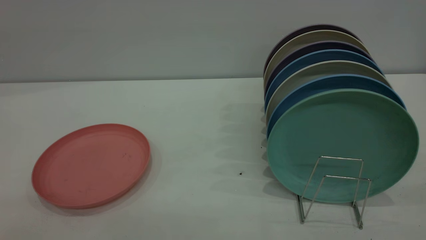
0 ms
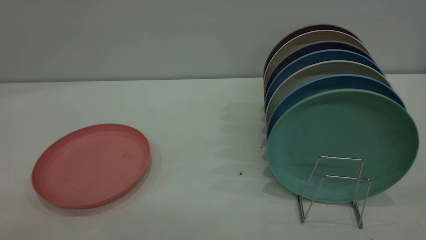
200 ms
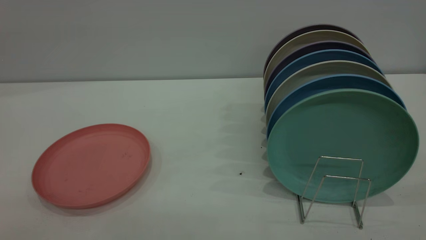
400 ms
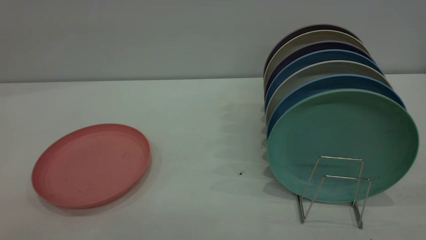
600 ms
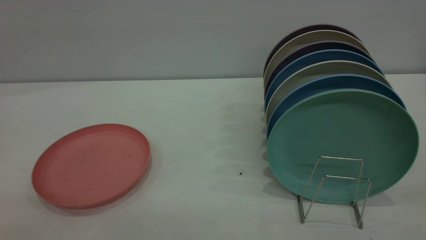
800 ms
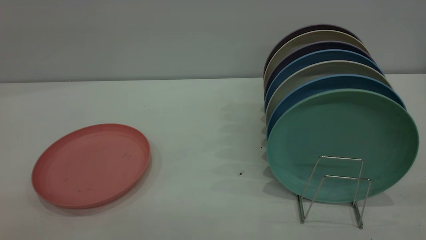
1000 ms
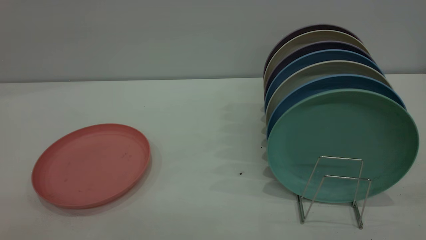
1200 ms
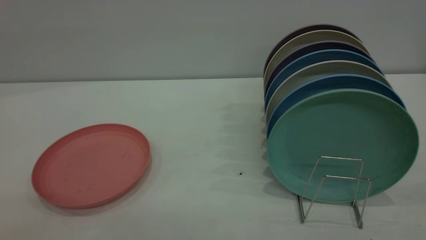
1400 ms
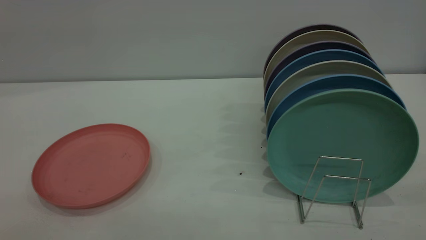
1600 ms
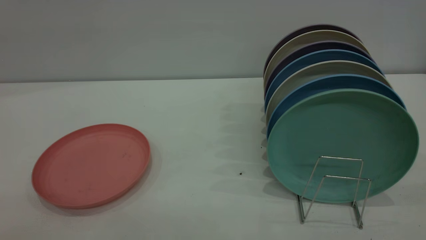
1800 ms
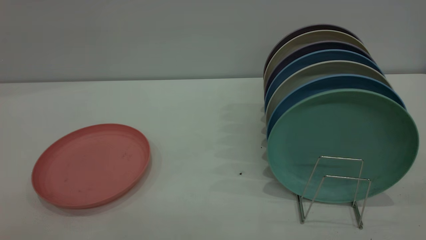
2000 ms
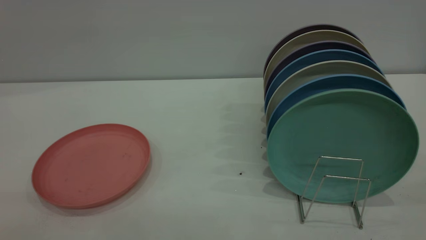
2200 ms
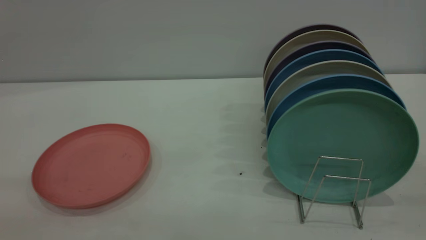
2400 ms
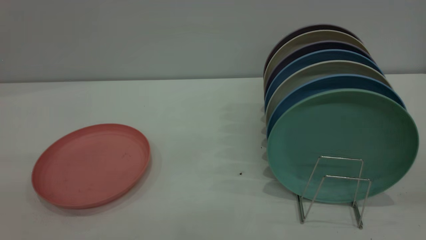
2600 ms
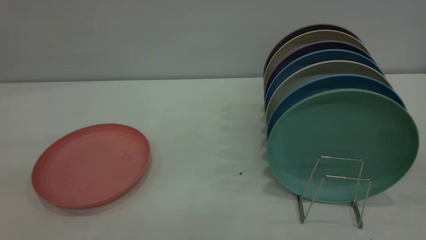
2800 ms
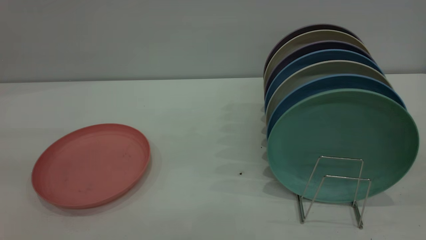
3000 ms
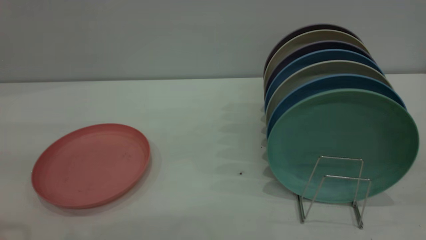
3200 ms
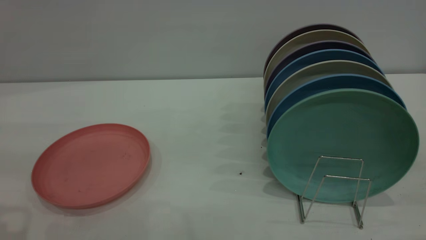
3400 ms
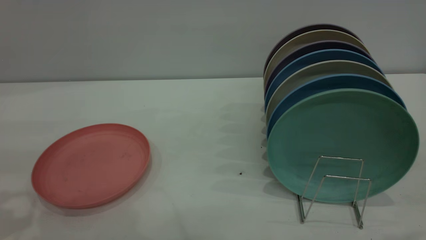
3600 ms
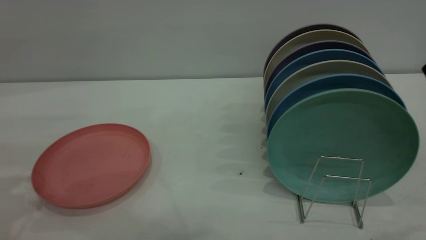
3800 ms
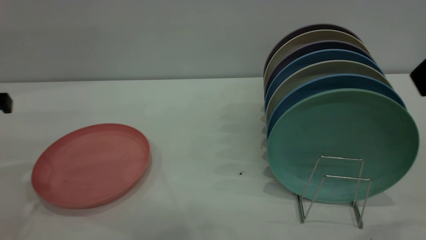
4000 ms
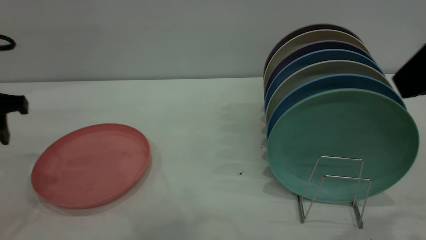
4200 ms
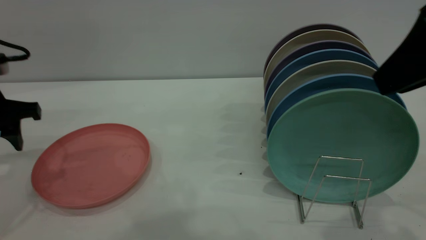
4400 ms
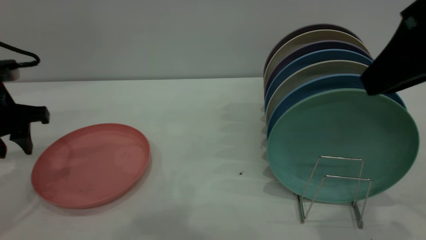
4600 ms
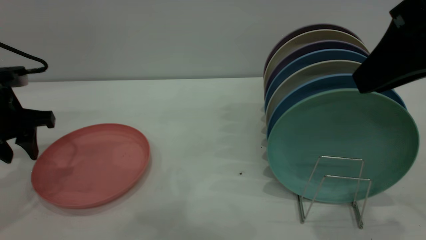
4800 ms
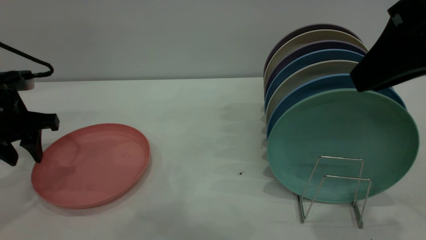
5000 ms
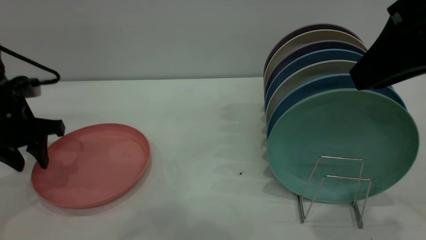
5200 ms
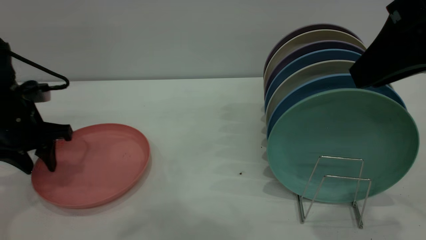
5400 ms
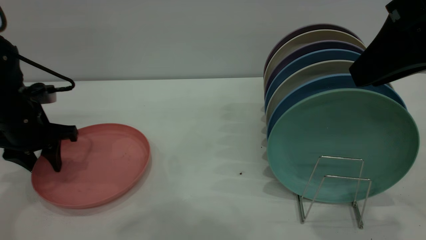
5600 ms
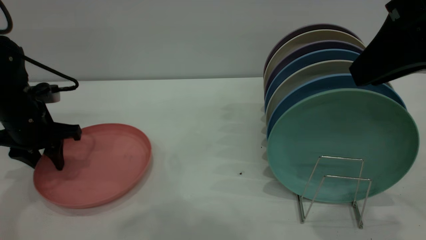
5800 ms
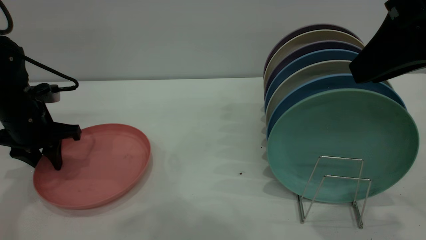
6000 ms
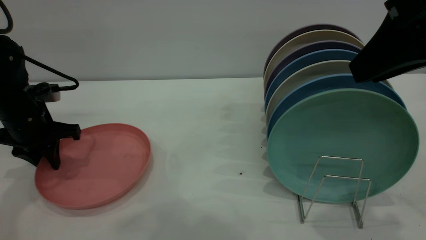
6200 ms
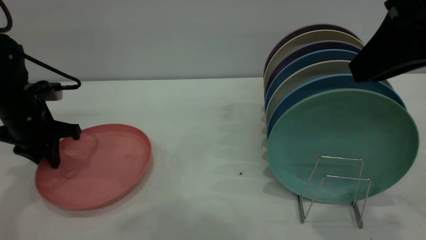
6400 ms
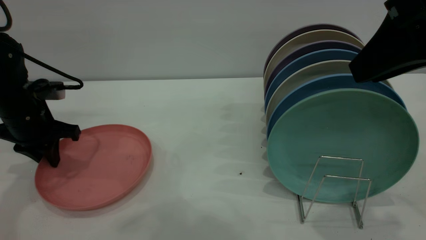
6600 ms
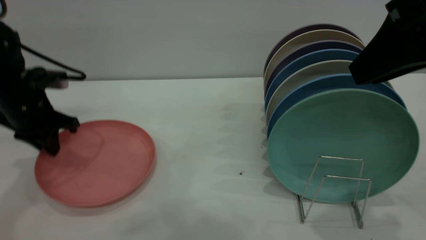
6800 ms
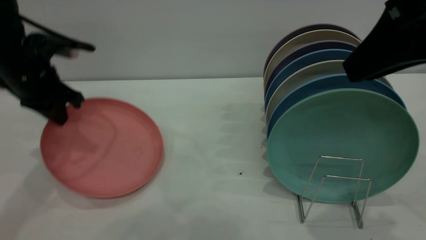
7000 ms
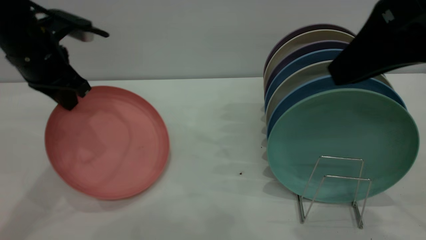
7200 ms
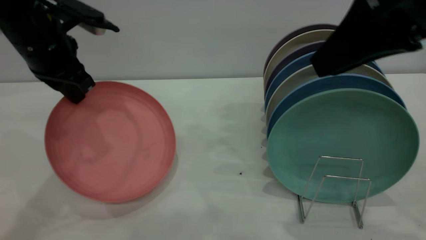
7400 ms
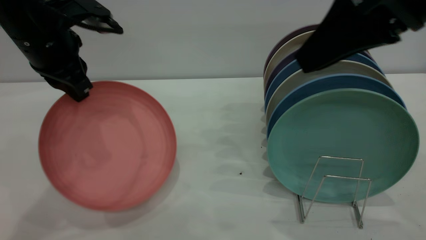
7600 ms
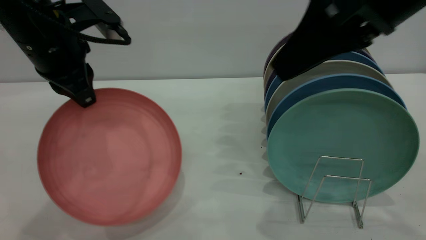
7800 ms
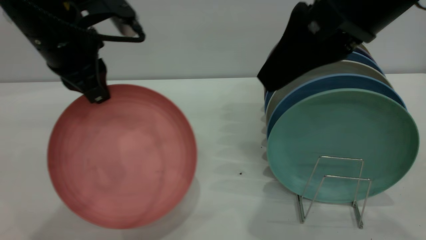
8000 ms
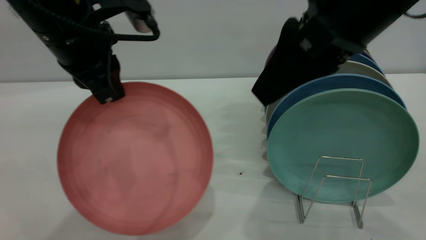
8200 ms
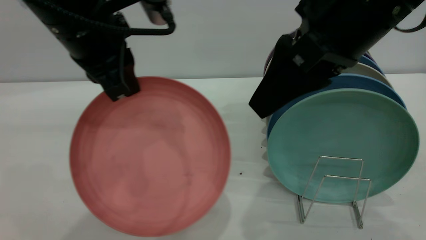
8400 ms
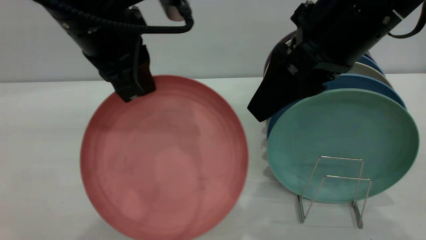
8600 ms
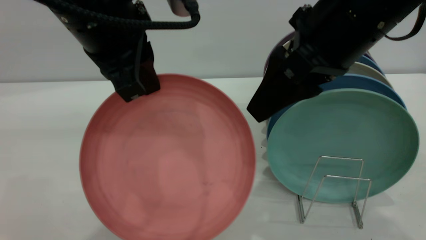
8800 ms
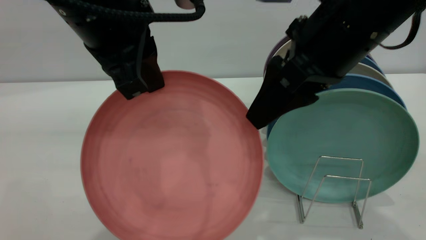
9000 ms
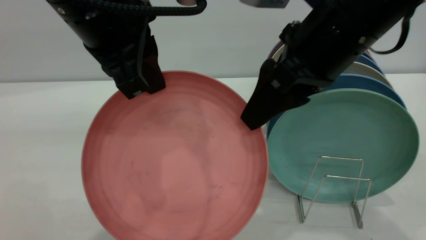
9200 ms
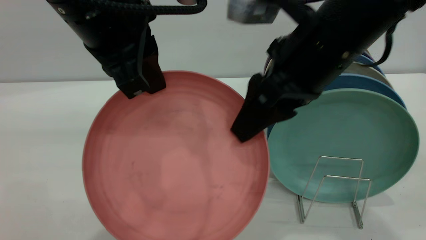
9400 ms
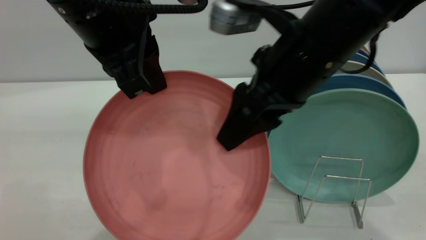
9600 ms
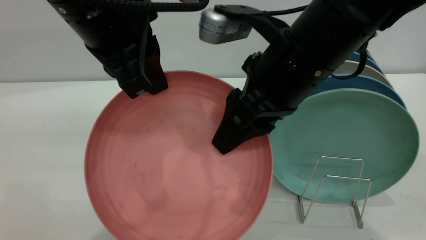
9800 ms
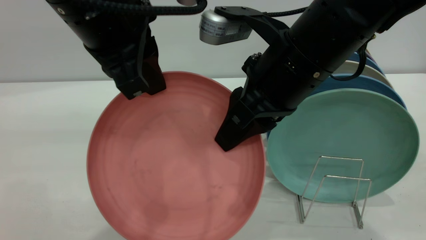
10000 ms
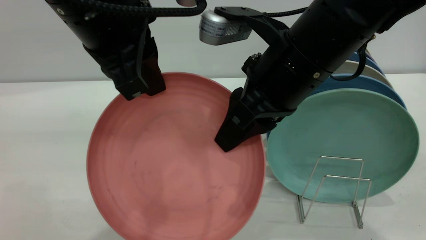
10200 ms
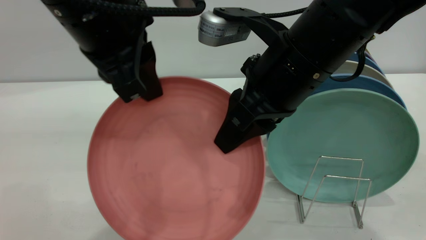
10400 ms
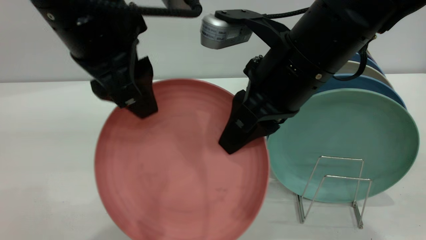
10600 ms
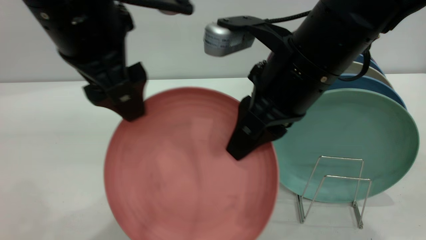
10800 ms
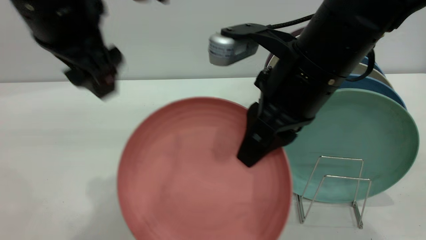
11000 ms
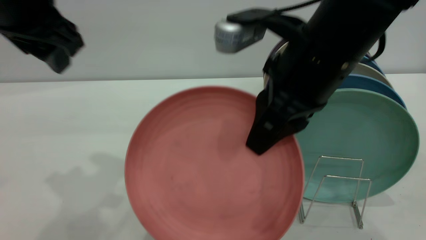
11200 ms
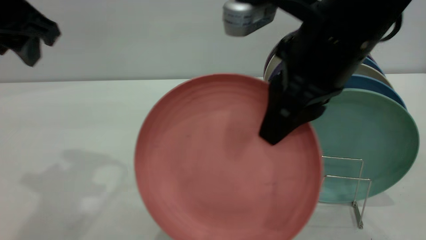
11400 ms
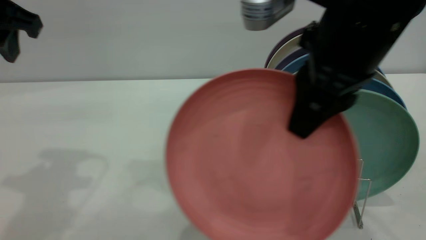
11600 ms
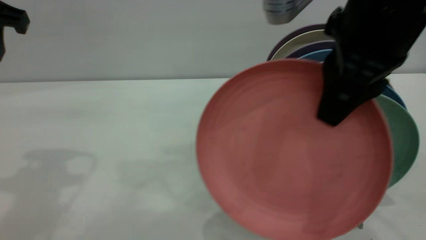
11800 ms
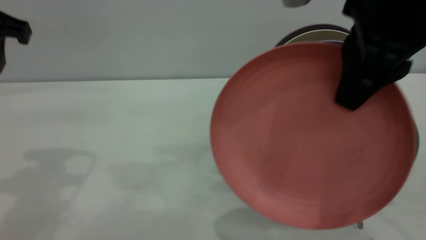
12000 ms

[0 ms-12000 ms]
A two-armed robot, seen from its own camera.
Task of the whole recording: put the plate on the plate rack.
Step, 0 ms to 7600 ms: Pick up the plate with the left gripper.
Step, 8000 ms to 10800 ms: Pass the plate from the left gripper to the right gripper.
0 ms to 1600 ms: Both grippers stay put.
3000 ms to 4400 ms: The left gripper heads forward and downward, covering some 25 cm; the right gripper shifts roughly 10 cm forward.
4400 ms to 6000 ms: The left gripper is displaced downward by roughly 5 cm.
6000 ms to 7600 ms: The left gripper travels upward and to the right by approximately 15 cm, and closes its fingers.
7600 ms to 9000 ms: The right gripper goes some 5 cm downward, and opens. Meanwhile the left gripper goes some 15 cm to the right, backward and upward.
9000 ms to 10400 ms: The right gripper ends up approximately 5 cm from where it was, and closes.
10400 ms to 12000 ms: The left gripper goes some 15 cm to the left, and opens, then closes once more, while the right gripper heads upward and to the right, covering roughly 10 cm.

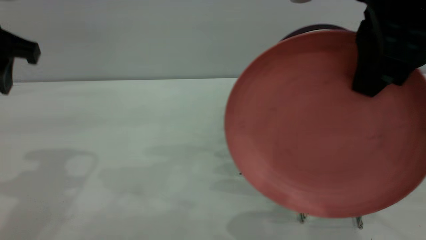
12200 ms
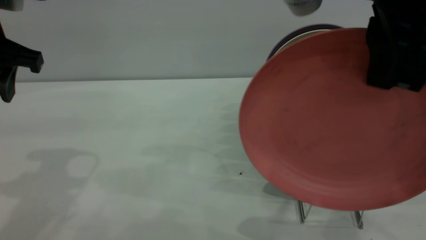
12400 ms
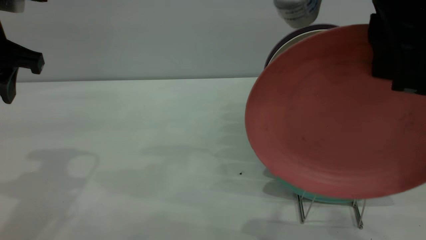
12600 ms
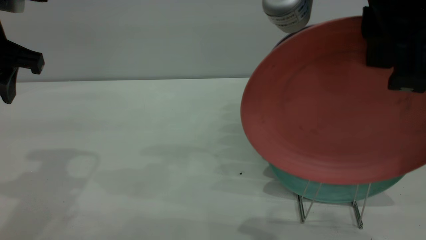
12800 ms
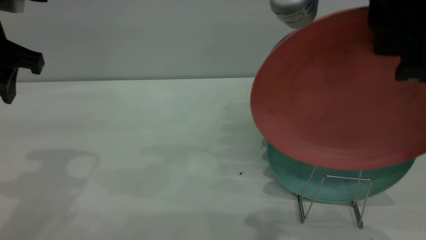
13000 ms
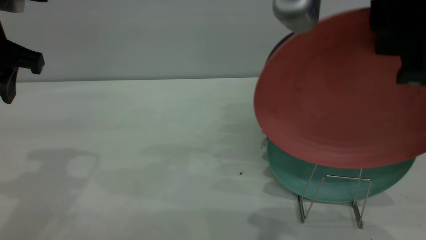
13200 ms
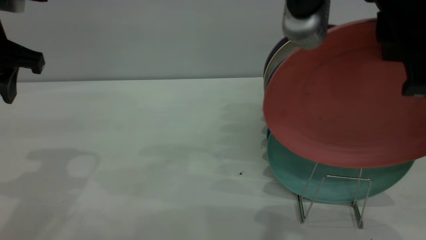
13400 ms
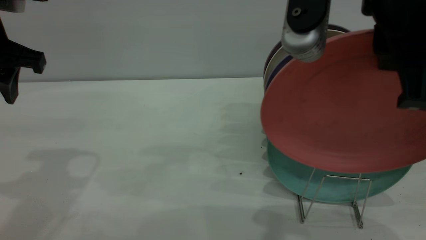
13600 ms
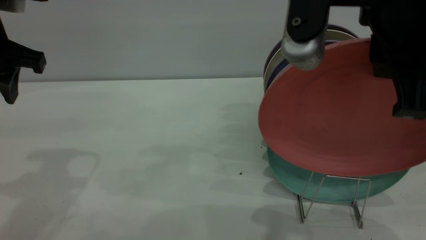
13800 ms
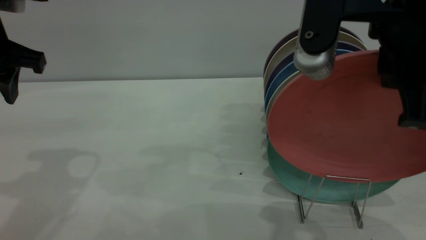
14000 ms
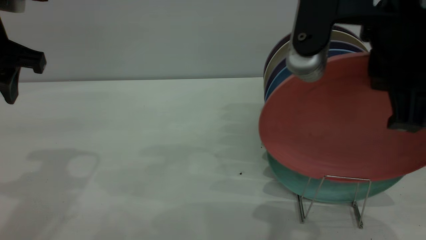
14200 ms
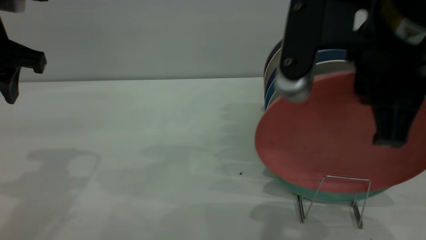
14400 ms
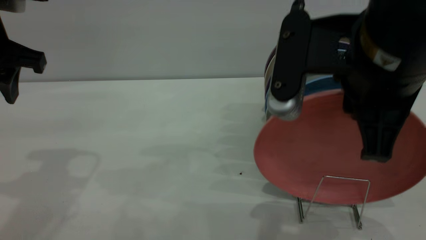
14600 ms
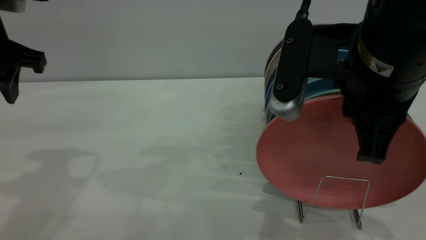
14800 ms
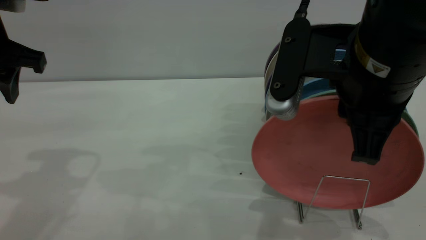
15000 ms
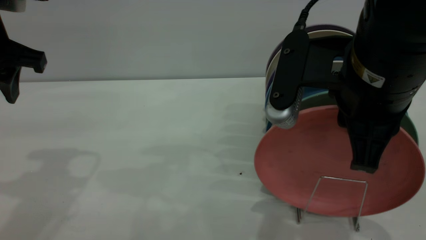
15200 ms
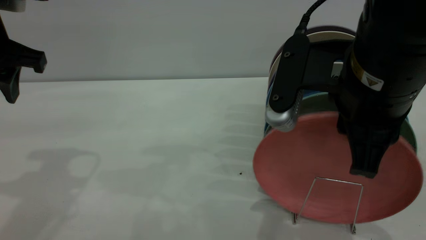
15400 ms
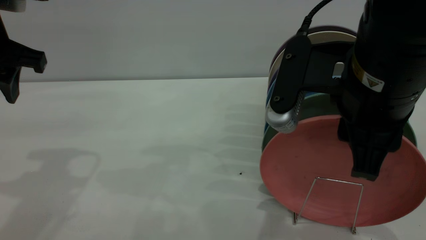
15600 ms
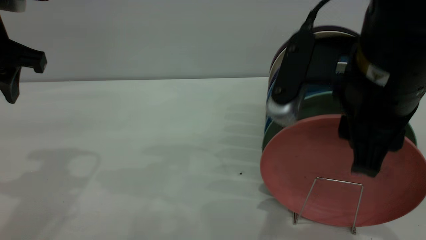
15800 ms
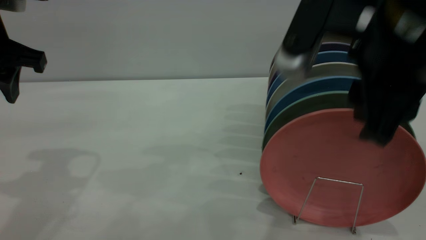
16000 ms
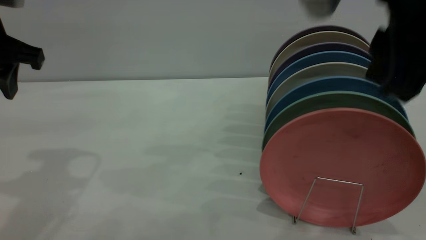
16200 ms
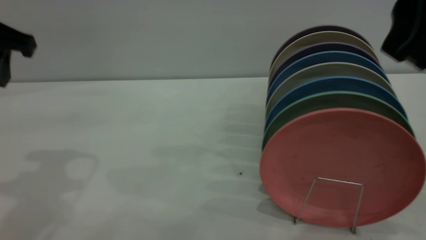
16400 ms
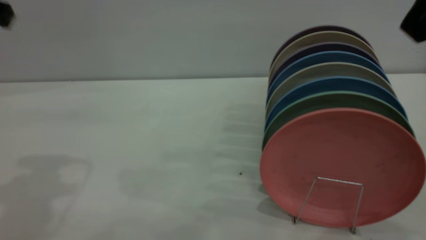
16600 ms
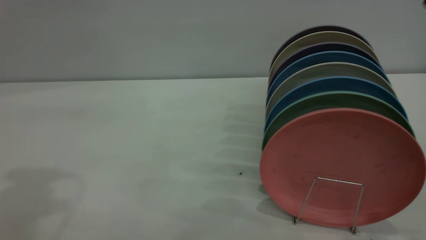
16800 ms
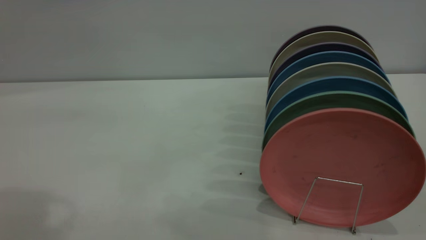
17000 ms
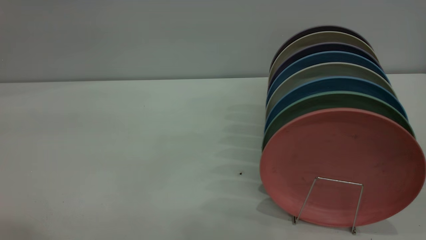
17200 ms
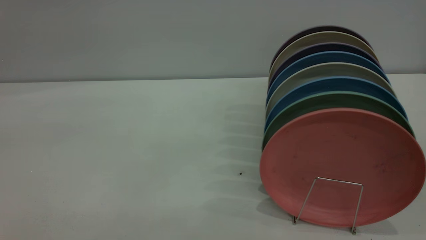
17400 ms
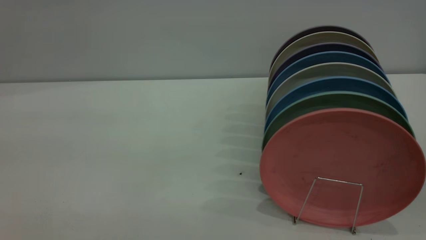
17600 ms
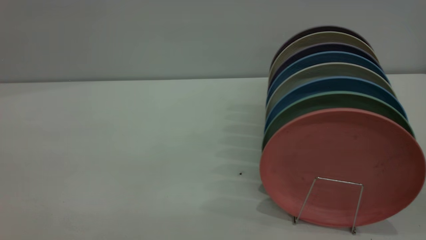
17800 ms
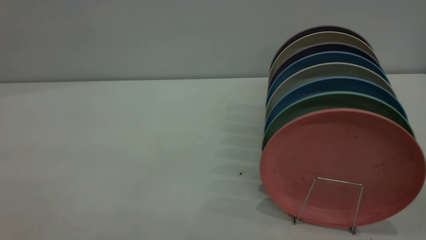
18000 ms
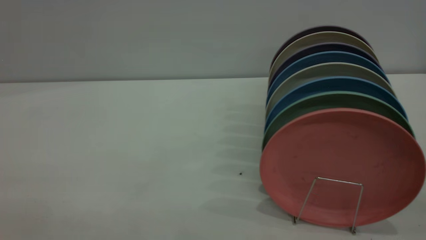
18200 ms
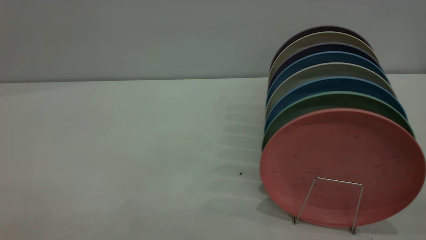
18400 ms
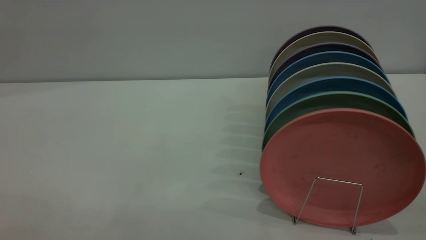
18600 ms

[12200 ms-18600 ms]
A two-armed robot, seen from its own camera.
Task of the whole recording: put the plate on the plate rack.
Step, 12200 ms to 16400 ms: Place the plate on the shelf.
13800 ms to 15400 ms: The right gripper moves downward, some 10 cm.
15400 ms to 17000 ms: The left gripper goes approximately 20 cm upward and backward; the right gripper moves upward, backward and to the right, about 20 cm, and opens its fingers.
